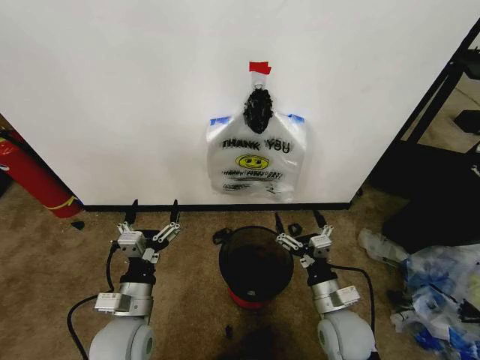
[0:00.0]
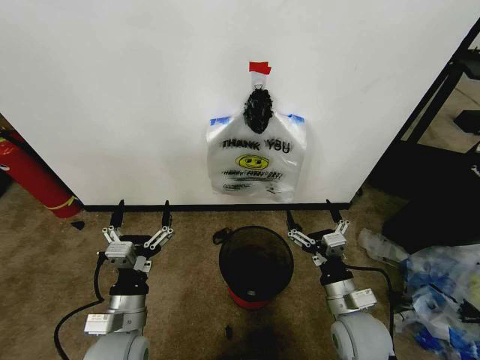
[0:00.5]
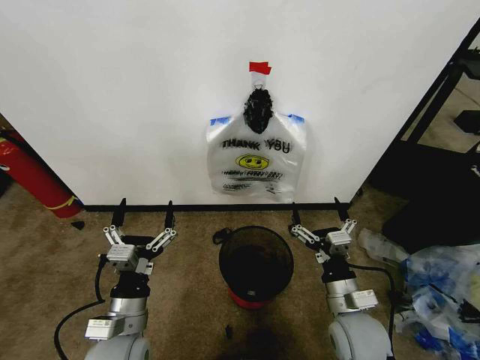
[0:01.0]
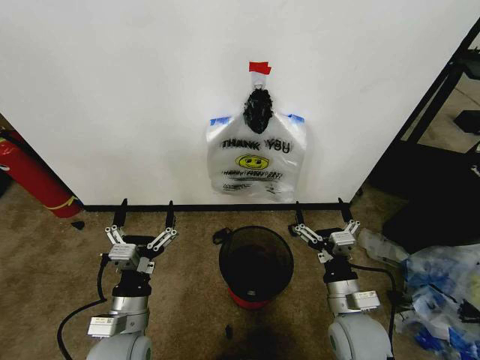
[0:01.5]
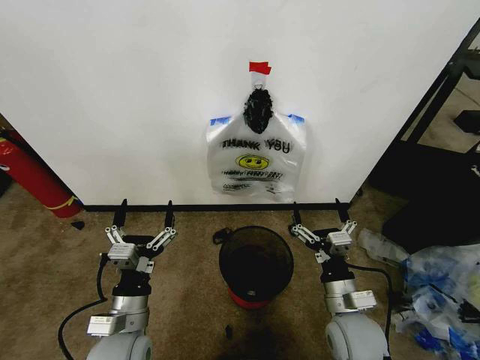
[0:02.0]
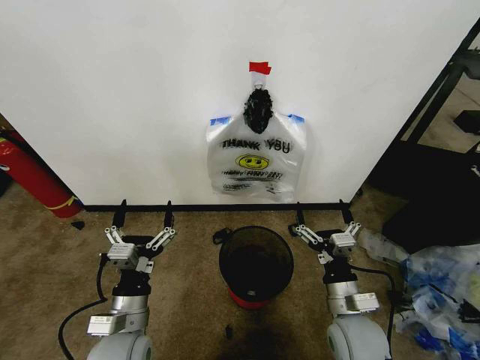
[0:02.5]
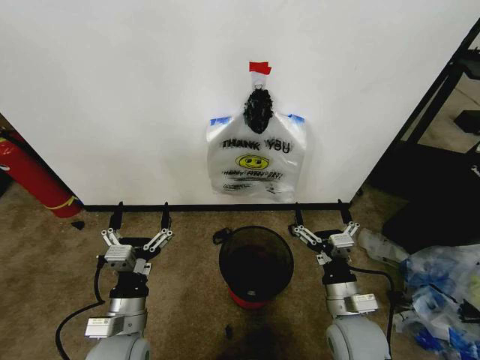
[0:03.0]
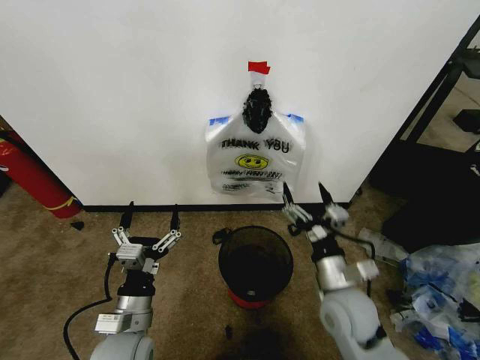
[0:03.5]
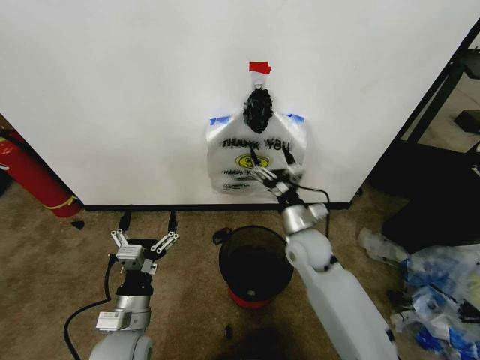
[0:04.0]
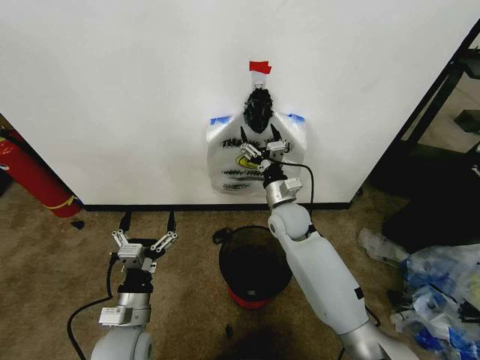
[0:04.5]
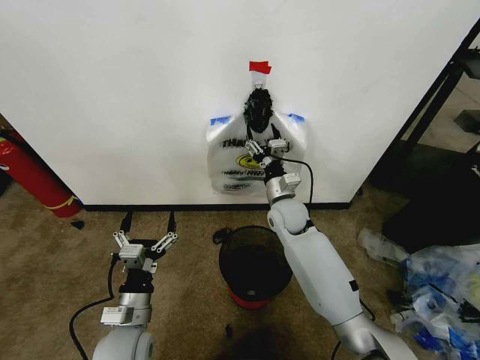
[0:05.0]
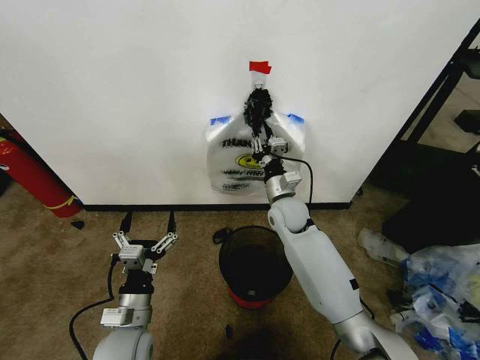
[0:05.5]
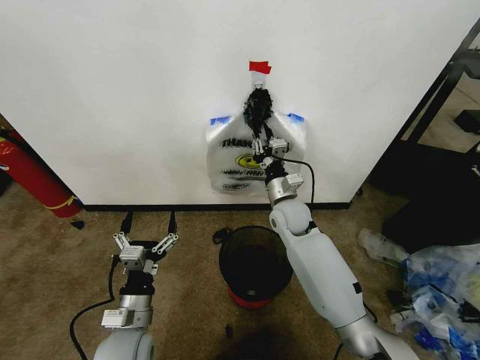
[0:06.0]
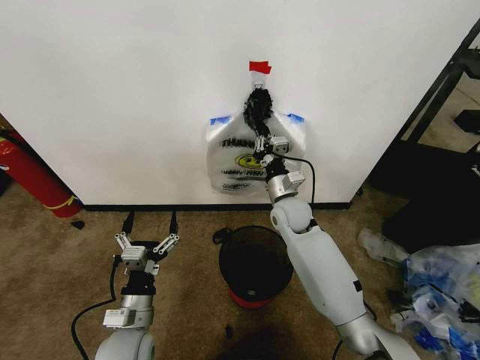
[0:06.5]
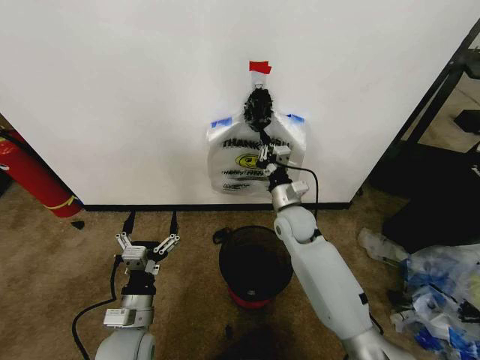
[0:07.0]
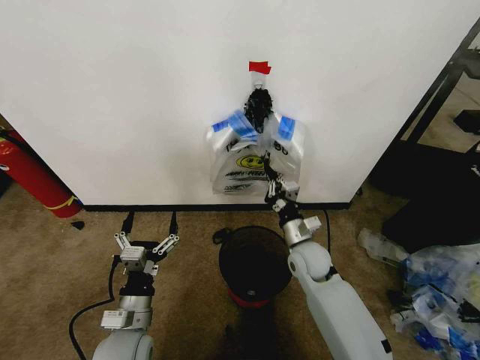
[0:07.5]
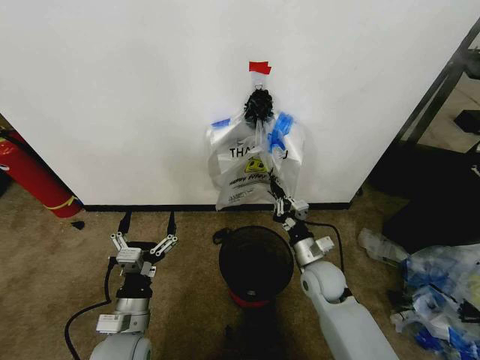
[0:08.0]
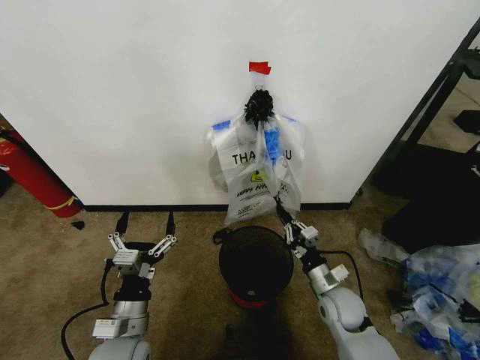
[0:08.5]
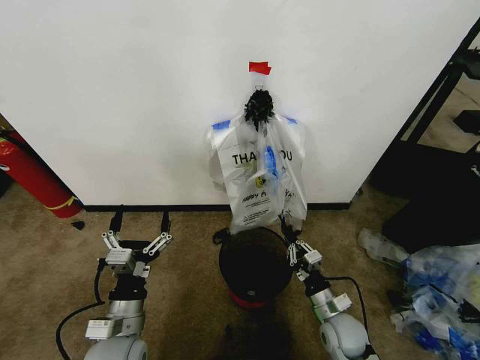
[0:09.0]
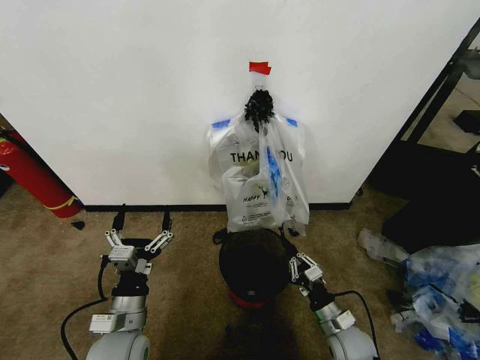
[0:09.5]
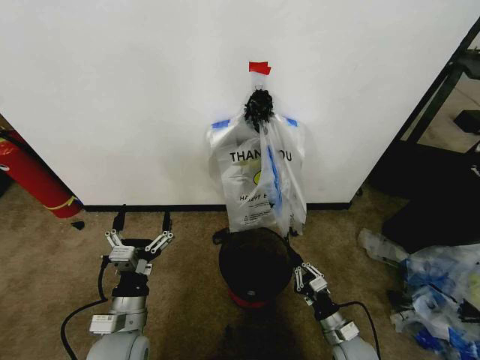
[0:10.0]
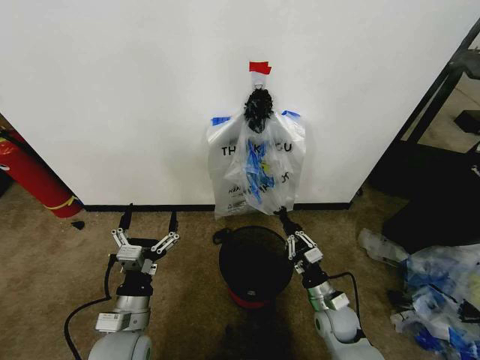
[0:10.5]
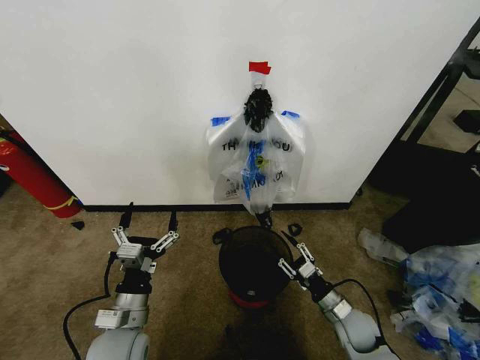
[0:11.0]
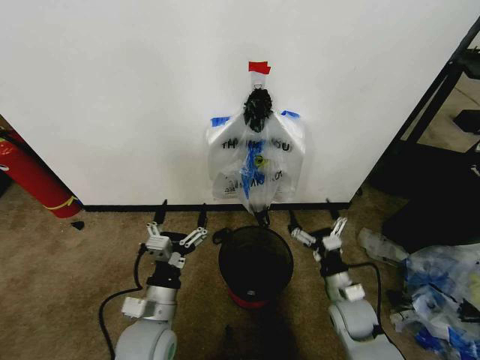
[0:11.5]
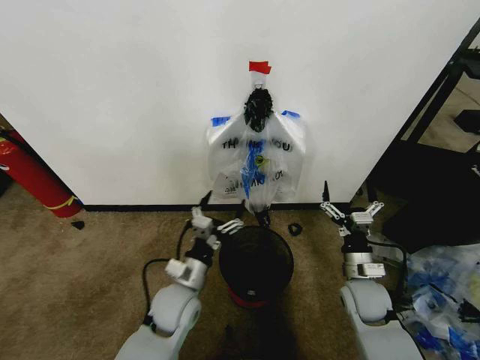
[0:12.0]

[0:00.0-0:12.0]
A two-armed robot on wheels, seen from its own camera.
Task of the whole recording: Pick up the garbage bag from the wall and place it over the trash bin.
0:02.0 to 0:04.0: The right gripper shifts some 20 cm forward.
0:04.0 to 0:06.0: The right gripper is displaced forward by roughly 10 cm, and closes its fingers.
0:06.0 to 0:08.0: The right gripper travels backward, downward and to the right by roughly 20 cm.
0:08.0 to 0:10.0: The right gripper travels backward, downward and to the right by about 20 cm.
0:10.0 to 0:12.0: The right gripper goes some 15 cm upward and forward, and opens its fingers. The left gripper is displaced forward and to the right by some 15 cm.

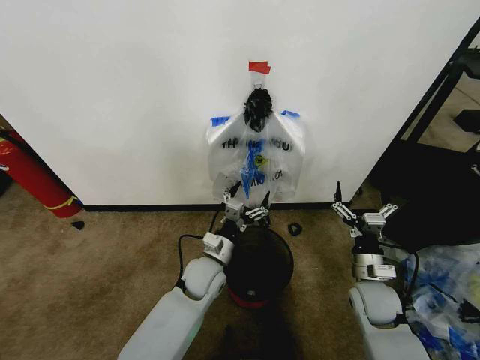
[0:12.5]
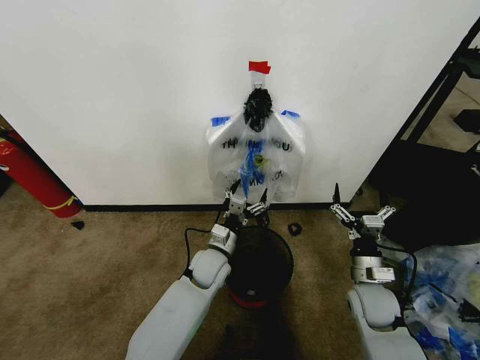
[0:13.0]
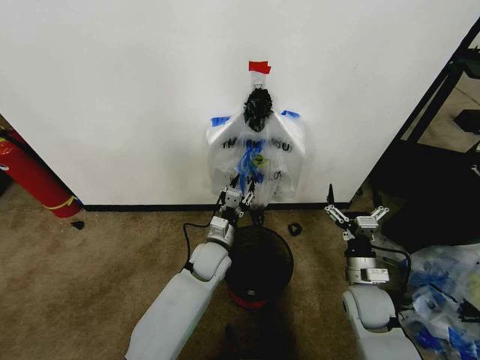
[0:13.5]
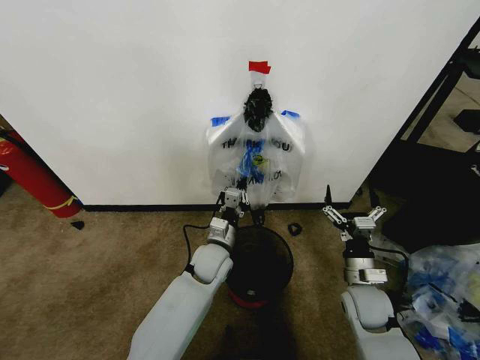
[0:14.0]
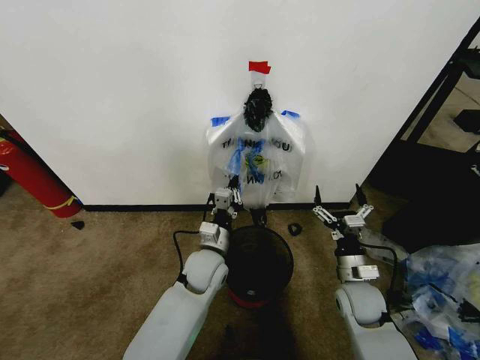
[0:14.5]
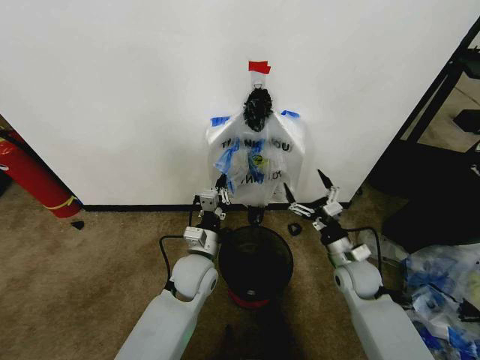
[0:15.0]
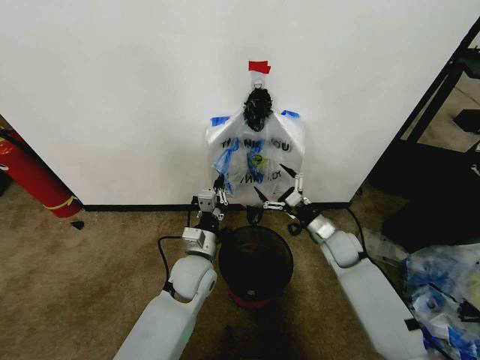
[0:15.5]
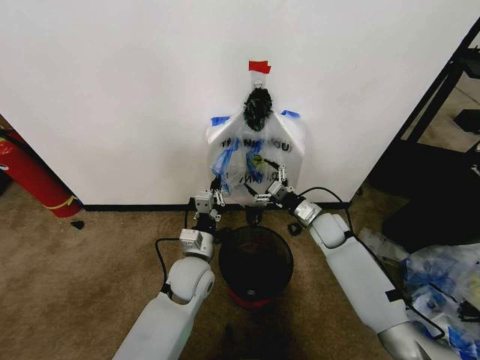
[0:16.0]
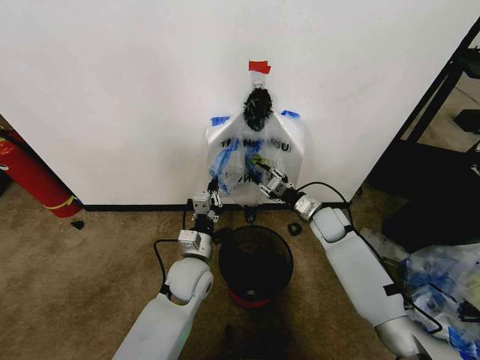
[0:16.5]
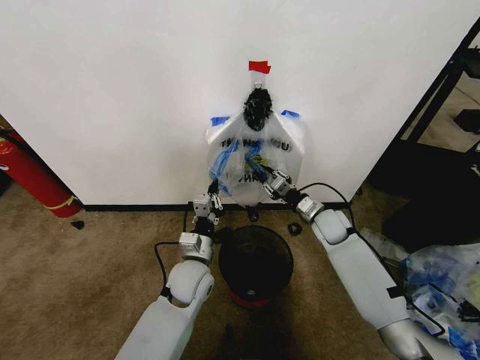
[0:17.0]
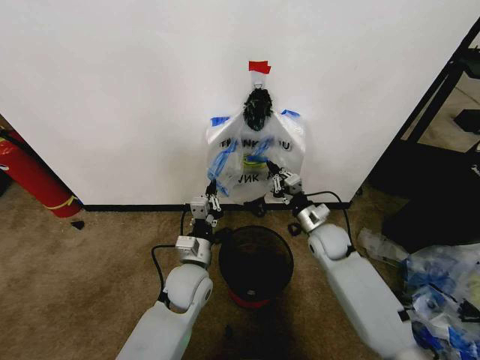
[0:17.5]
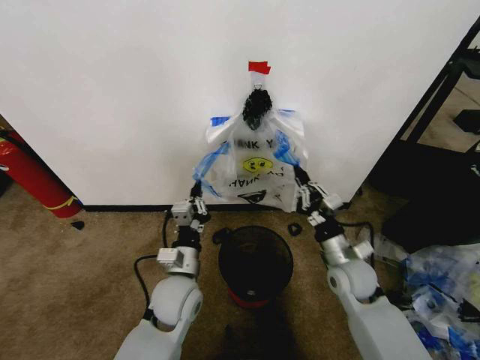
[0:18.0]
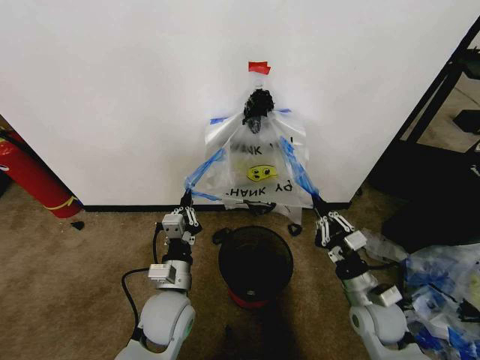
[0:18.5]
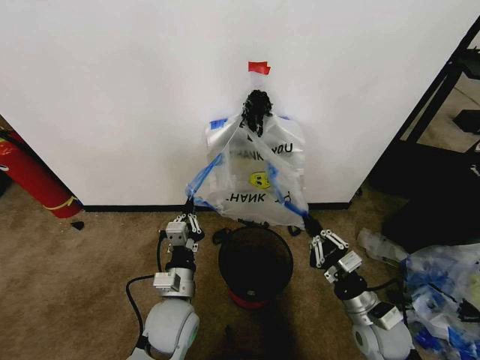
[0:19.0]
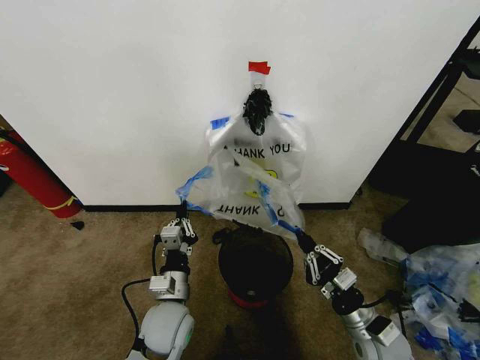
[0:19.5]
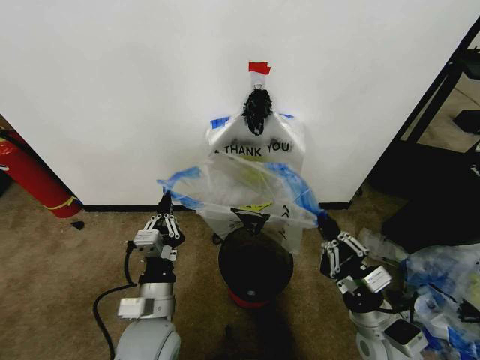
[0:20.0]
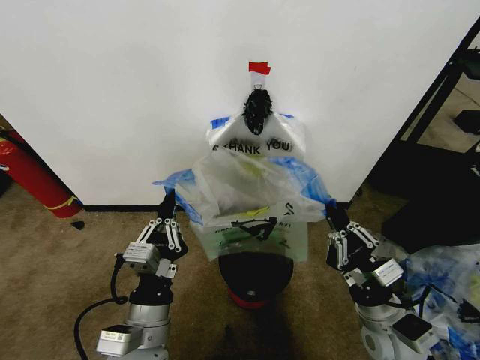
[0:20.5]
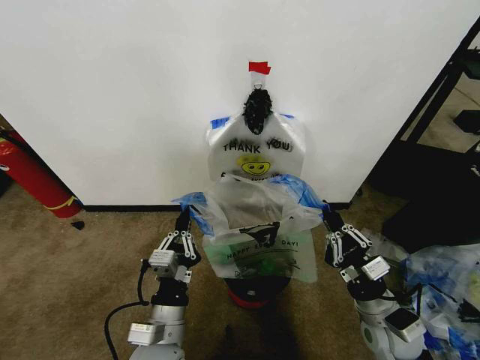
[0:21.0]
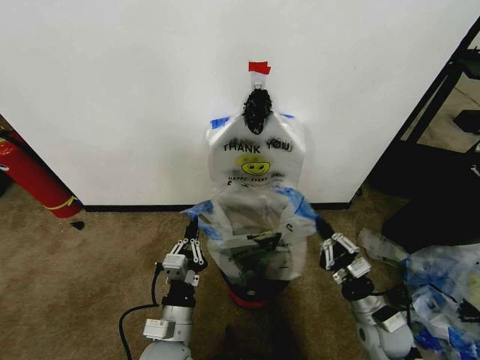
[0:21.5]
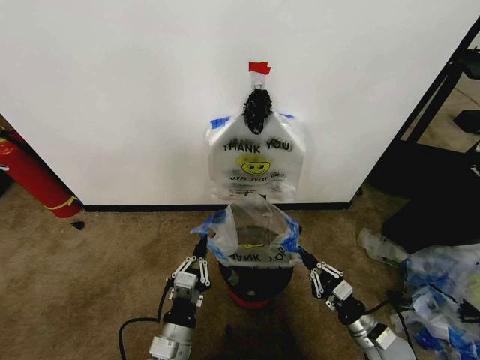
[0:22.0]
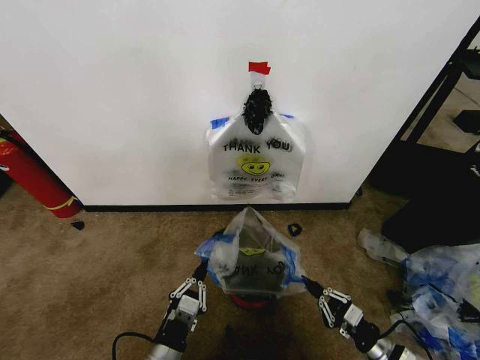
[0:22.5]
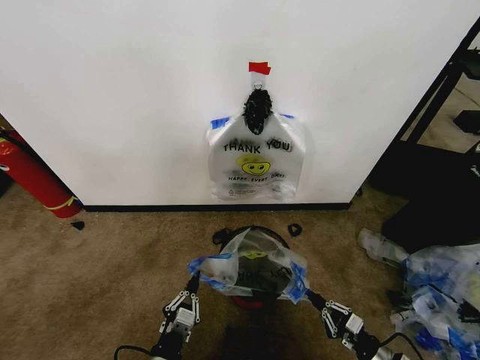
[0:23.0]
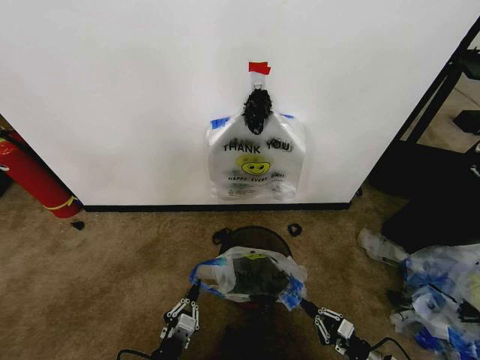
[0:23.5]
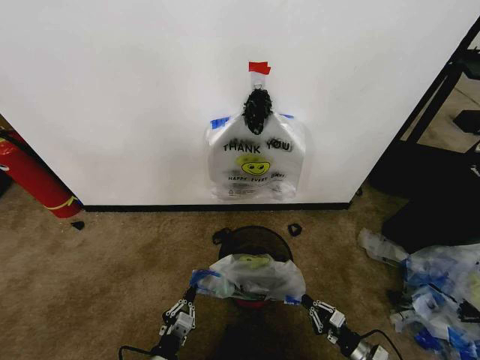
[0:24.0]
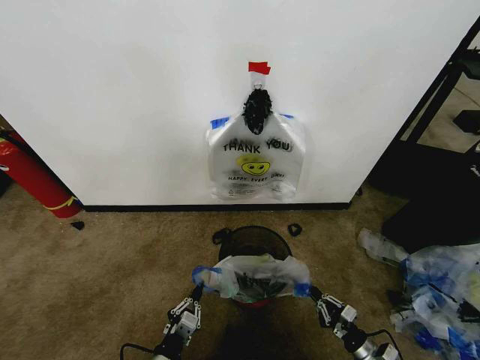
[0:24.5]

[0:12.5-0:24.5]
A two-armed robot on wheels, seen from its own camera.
Task of the whole recording: Pick up the garbage bag from the wall and place it over the trash bin.
0:12.5 to 0:14.5: The left gripper closes its fingers.
0:14.5 to 0:16.5: The right gripper heads forward, covering some 20 cm, and closes.
0:16.5 to 0:18.5: The right gripper moves backward, some 25 cm, and closes. Meanwhile the left gripper heads backward, covering roughly 10 cm.
0:18.5 to 0:20.5: The right gripper changes place by roughly 5 cm. Meanwhile the left gripper moves backward and upward, roughly 10 cm.
0:20.5 to 0:22.5: The right gripper travels downward and to the right by roughly 20 cm; the left gripper travels downward by approximately 15 cm.
0:22.5 to 0:24.5: The two grippers go approximately 10 cm downward.

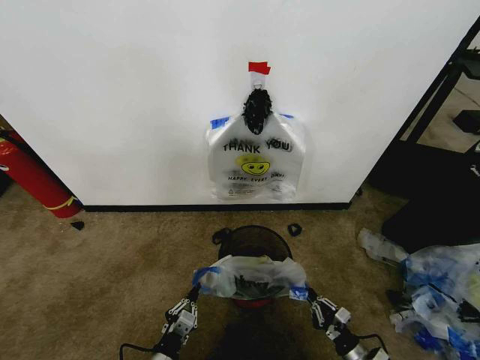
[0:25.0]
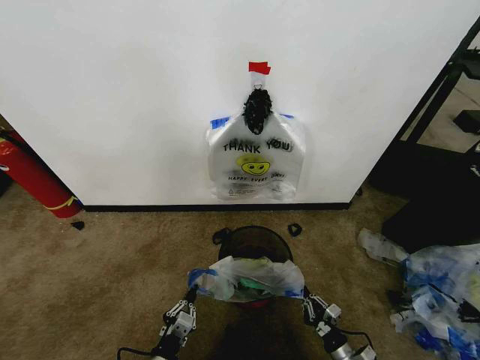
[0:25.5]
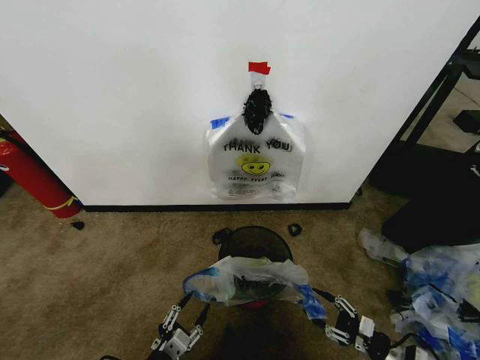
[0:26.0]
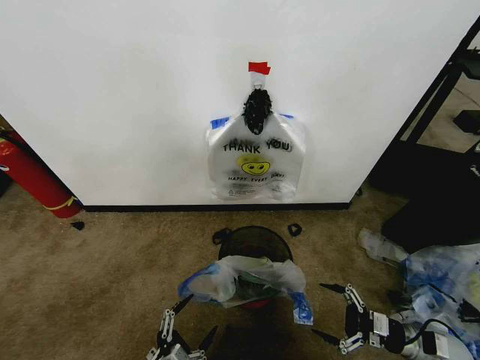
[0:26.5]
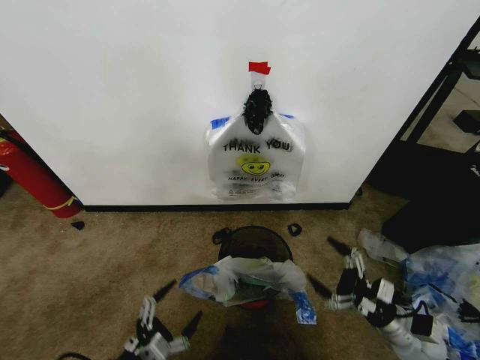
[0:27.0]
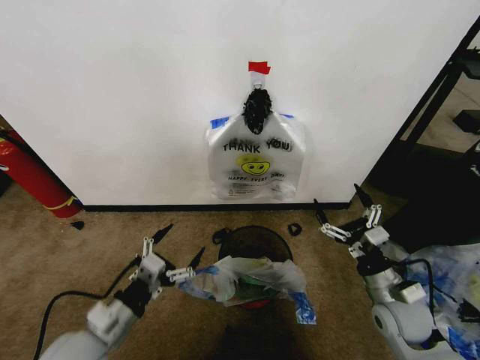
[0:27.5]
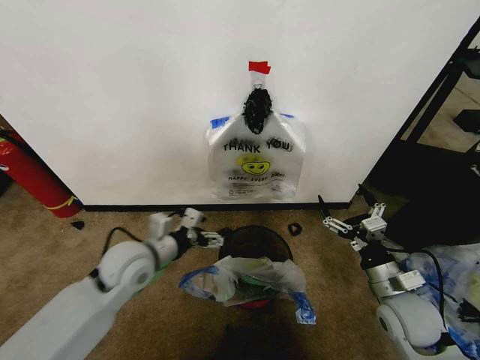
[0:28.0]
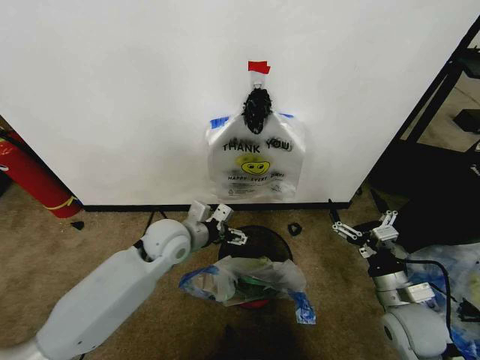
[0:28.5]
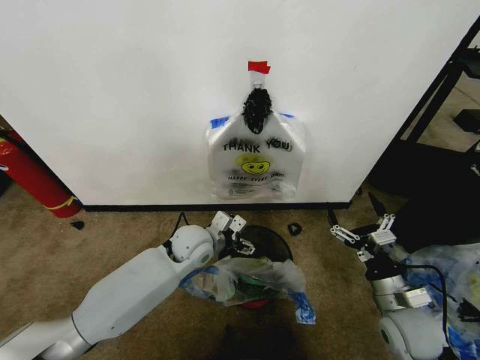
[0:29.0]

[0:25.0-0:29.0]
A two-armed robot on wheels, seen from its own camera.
Task of the whole recording: Pick up the garbage bag from the wall and place it over the trash bin.
0:25.0 to 0:27.0: The left gripper is displaced upward and to the left by roughly 15 cm, and opens. Meanwhile the right gripper moves upward, approximately 15 cm, and opens its fingers.
0:27.0 to 0:29.0: The left gripper travels forward and to the right by roughly 35 cm. Meanwhile the right gripper travels upward and to the left by approximately 10 cm.
